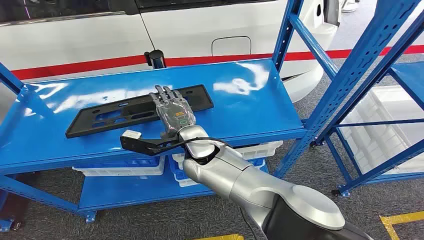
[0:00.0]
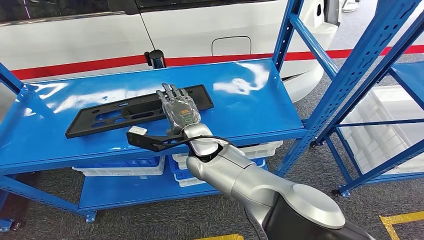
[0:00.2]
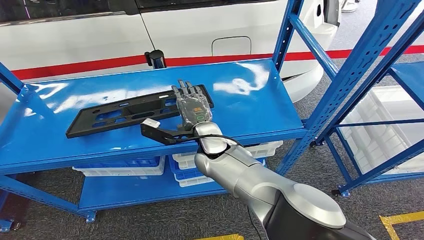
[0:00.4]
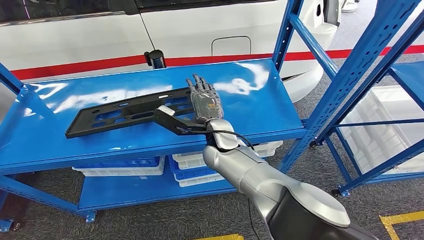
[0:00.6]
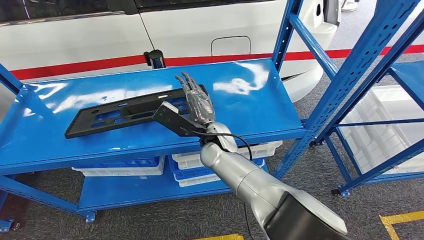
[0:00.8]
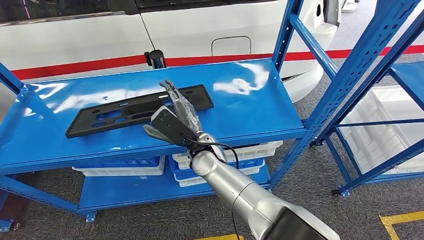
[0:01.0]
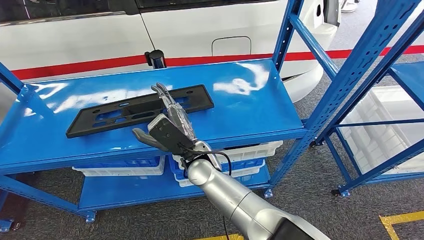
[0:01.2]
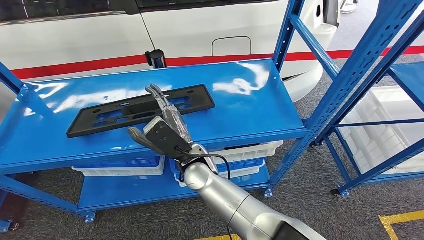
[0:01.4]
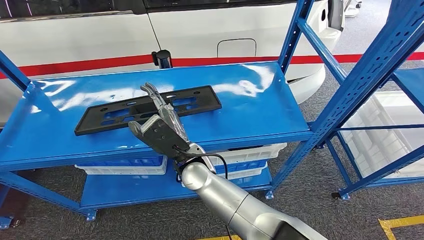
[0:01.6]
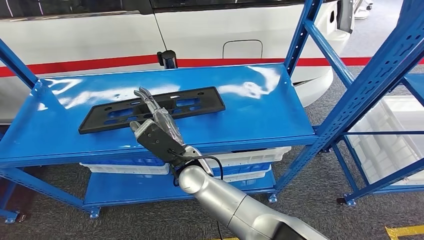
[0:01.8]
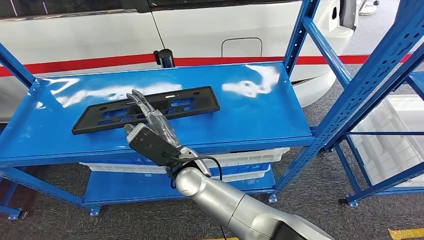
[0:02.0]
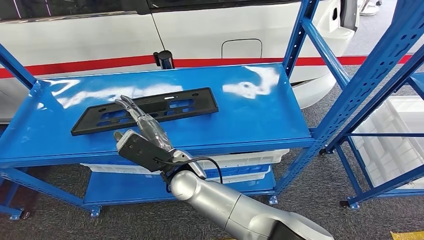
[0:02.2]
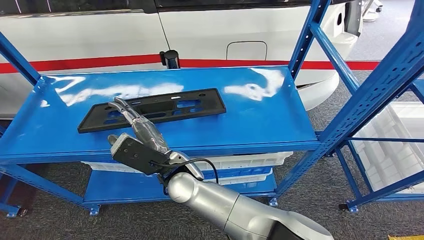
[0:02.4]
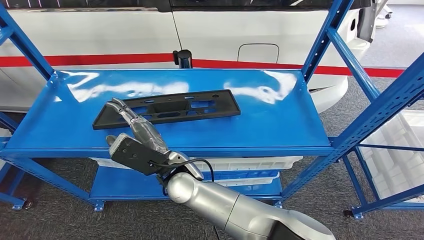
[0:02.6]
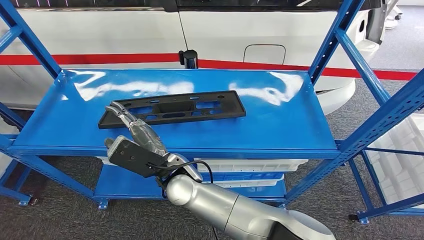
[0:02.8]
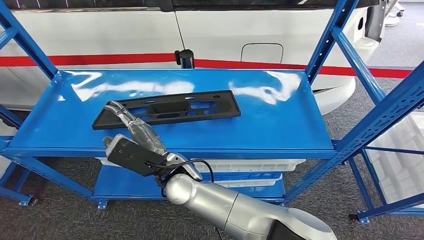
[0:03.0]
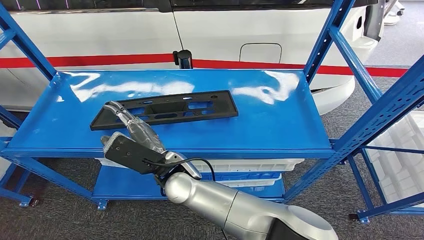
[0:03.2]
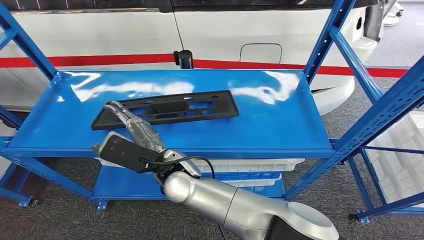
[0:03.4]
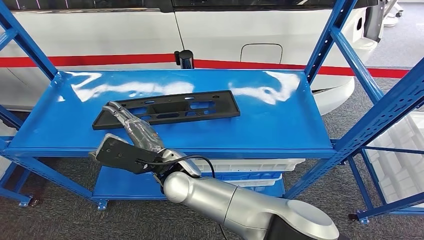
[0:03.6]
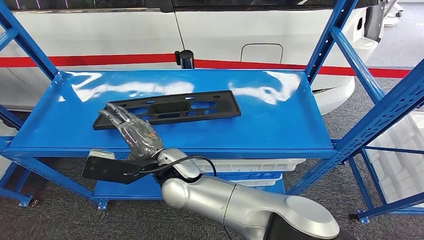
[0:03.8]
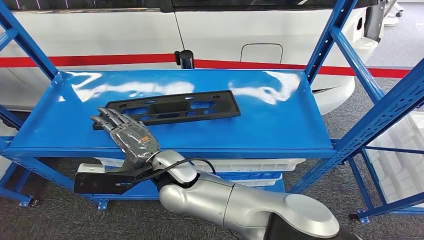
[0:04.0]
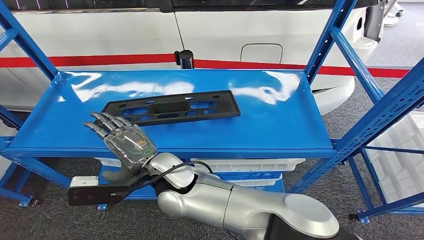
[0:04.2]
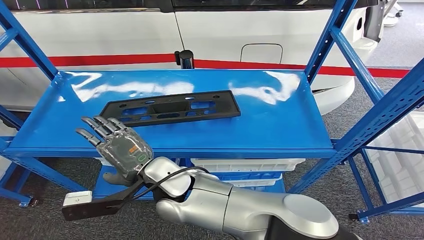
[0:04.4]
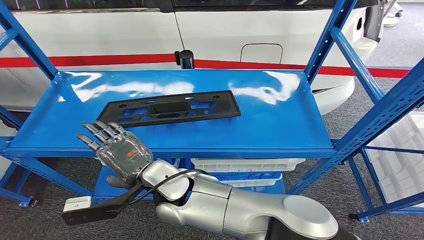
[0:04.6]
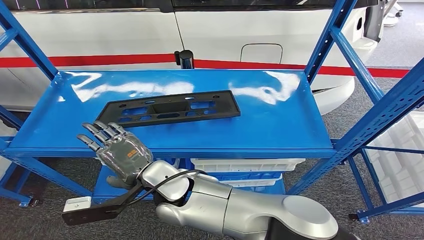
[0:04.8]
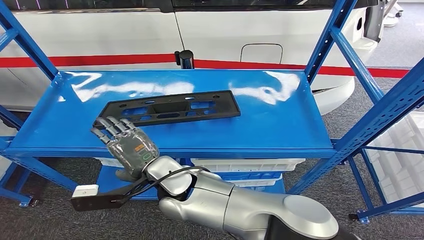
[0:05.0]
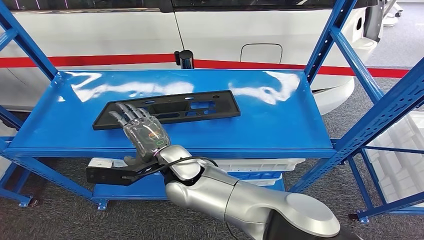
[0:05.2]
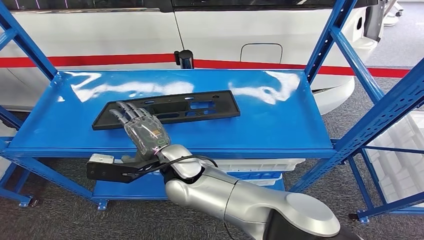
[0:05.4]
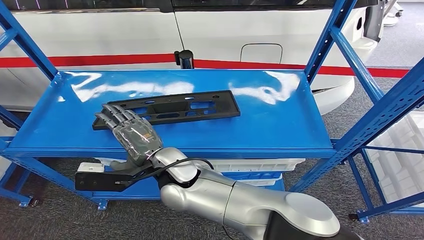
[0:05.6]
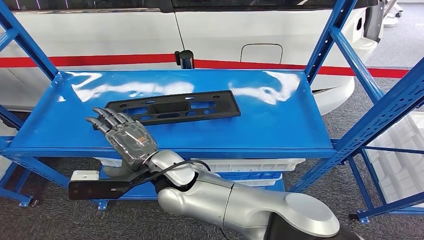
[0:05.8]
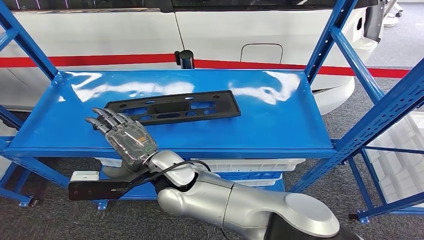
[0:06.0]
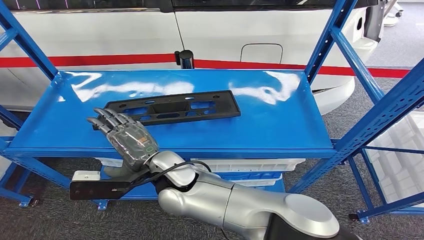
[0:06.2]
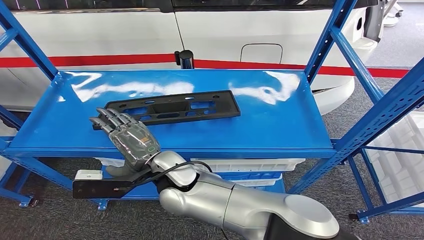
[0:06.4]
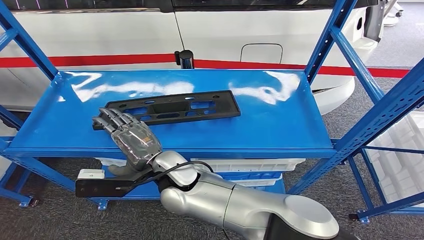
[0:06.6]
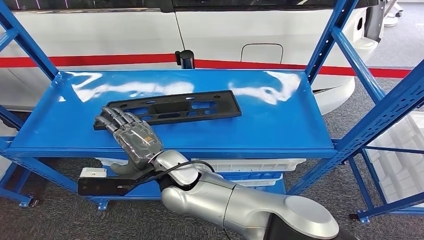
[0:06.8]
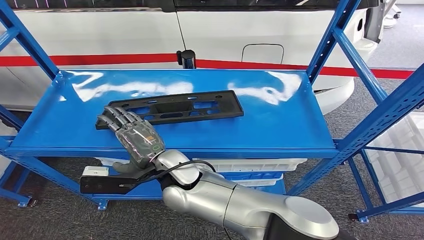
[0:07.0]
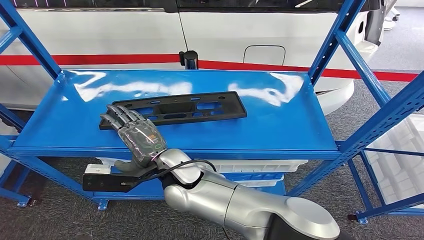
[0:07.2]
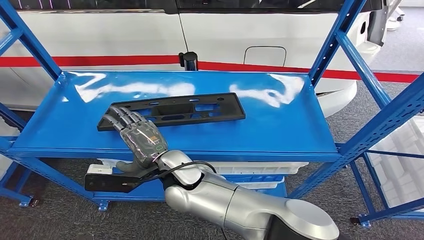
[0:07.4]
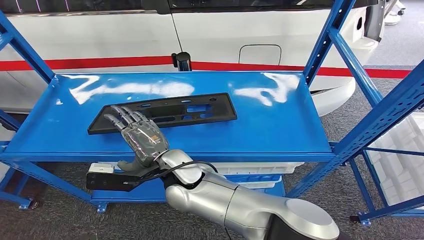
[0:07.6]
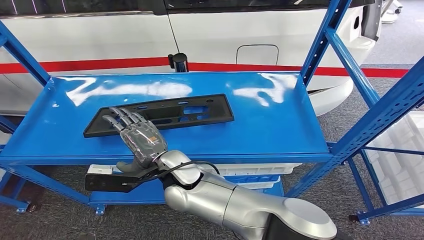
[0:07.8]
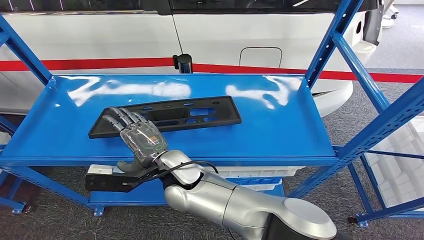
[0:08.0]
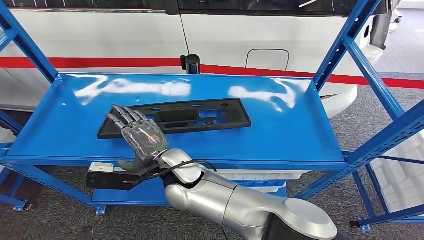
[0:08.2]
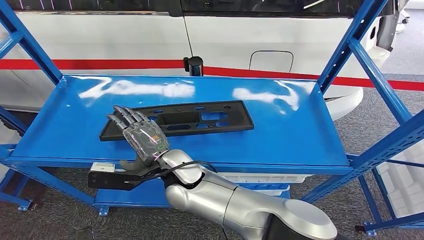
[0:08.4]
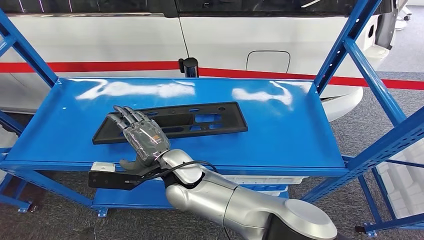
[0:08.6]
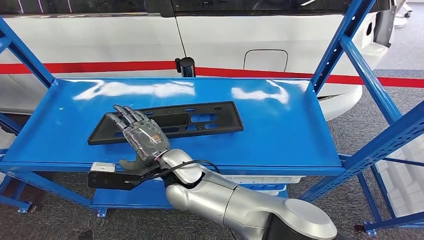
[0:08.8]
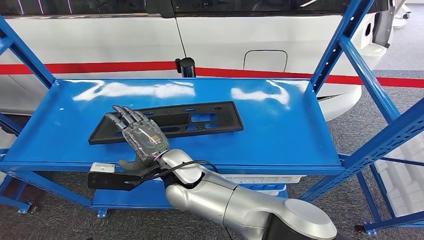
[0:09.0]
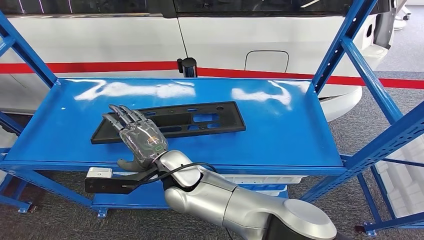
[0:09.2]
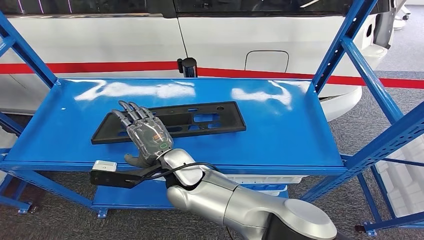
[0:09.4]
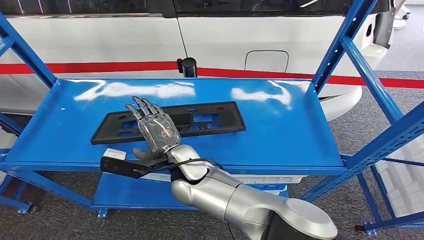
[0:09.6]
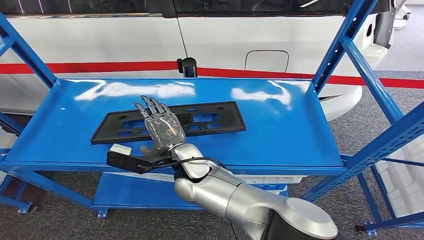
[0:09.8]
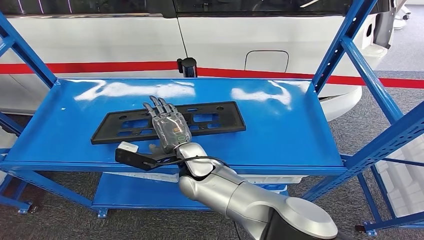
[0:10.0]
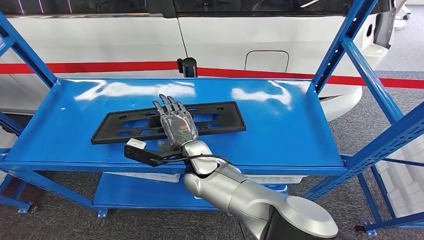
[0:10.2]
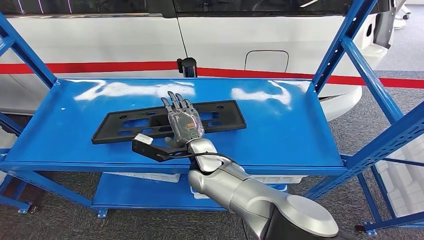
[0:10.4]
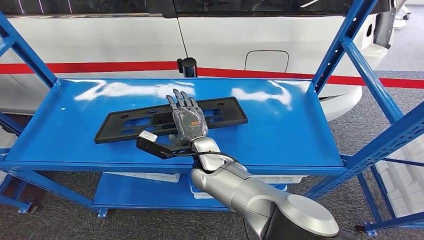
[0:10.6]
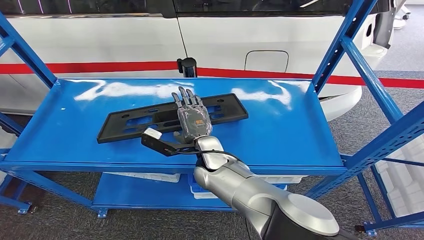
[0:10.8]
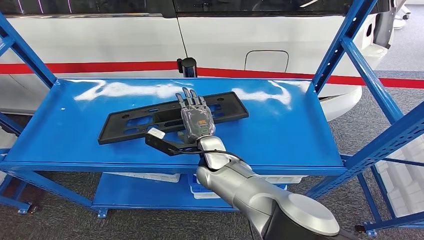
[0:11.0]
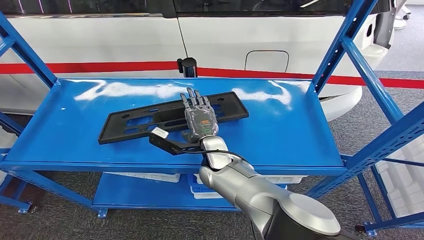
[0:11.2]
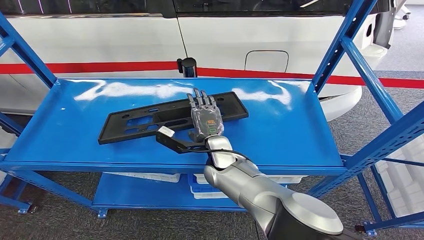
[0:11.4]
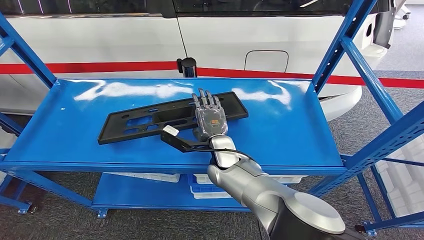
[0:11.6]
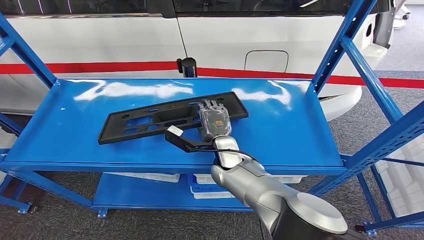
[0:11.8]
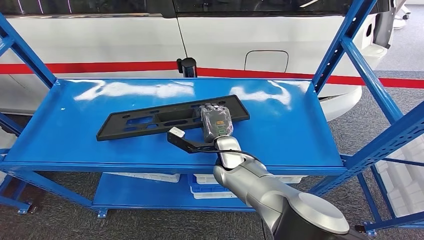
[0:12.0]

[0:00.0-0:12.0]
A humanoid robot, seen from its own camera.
0:04.4 to 0:06.0: The hands move only a little.
0:09.0 to 0:10.4: The right hand heads to the right, covering about 5 cm.
0:10.4 to 0:12.0: The right hand goes about 5 cm to the right.

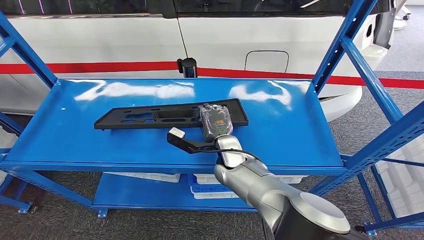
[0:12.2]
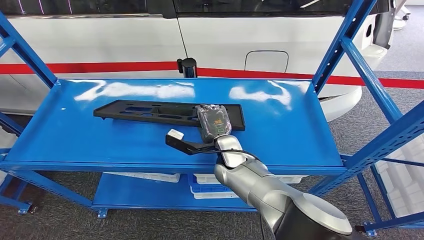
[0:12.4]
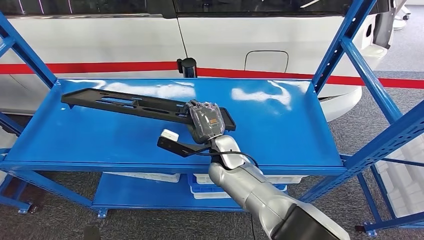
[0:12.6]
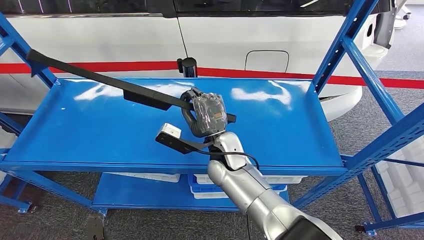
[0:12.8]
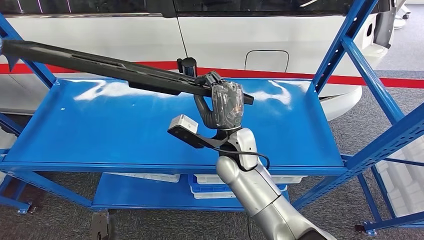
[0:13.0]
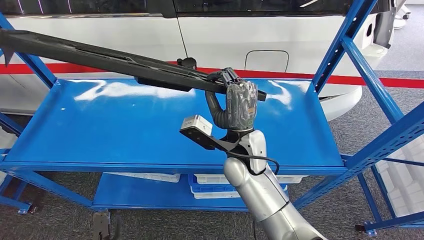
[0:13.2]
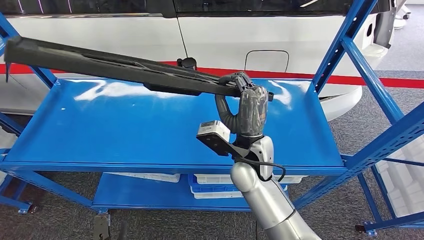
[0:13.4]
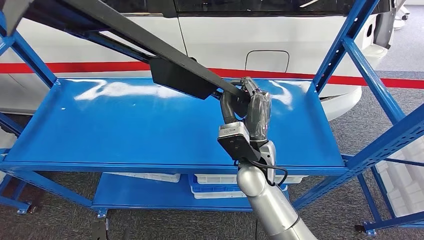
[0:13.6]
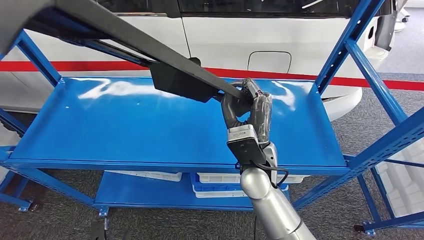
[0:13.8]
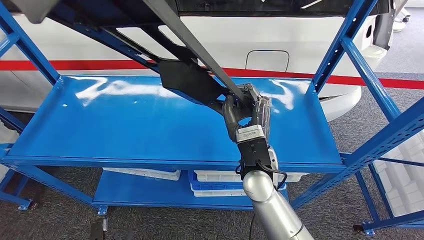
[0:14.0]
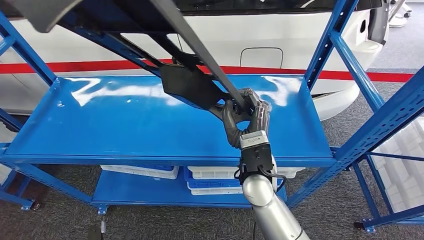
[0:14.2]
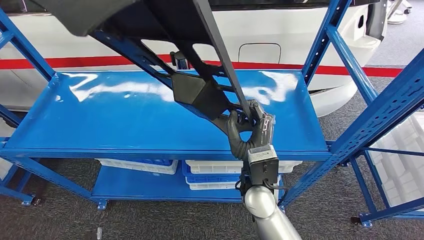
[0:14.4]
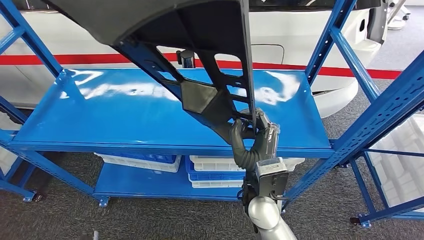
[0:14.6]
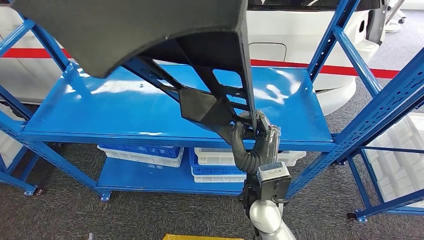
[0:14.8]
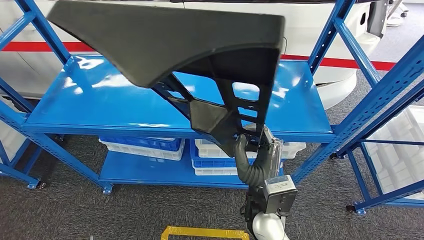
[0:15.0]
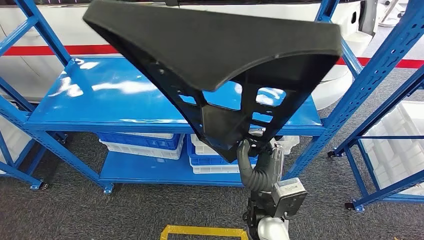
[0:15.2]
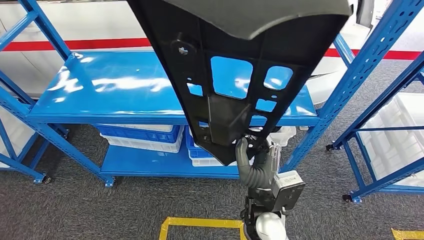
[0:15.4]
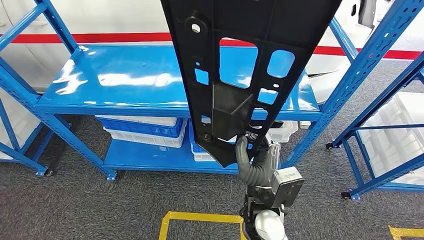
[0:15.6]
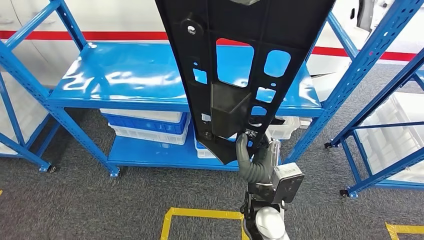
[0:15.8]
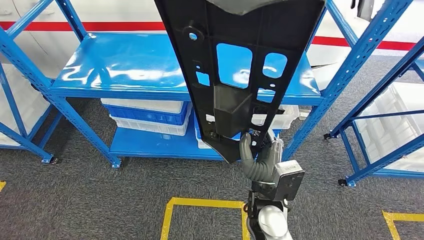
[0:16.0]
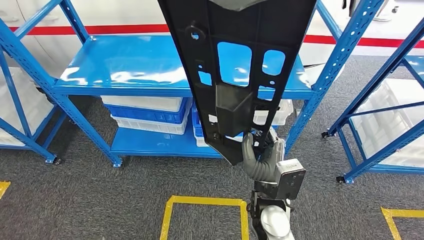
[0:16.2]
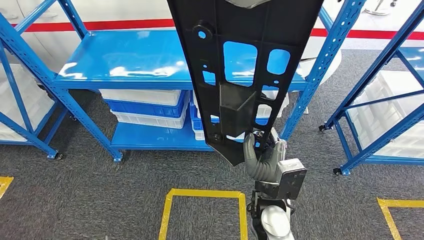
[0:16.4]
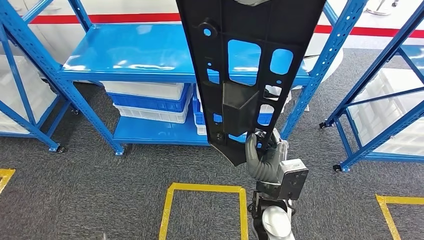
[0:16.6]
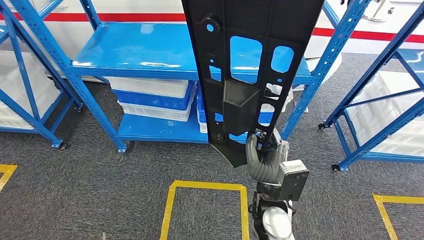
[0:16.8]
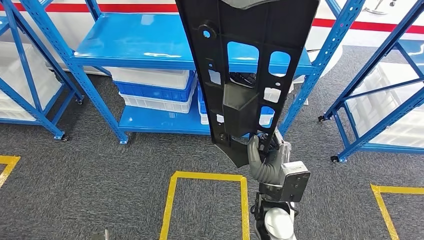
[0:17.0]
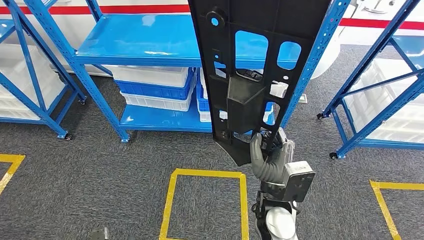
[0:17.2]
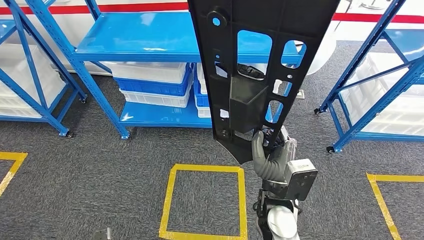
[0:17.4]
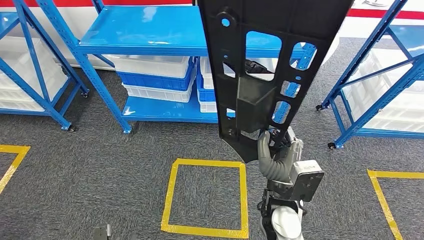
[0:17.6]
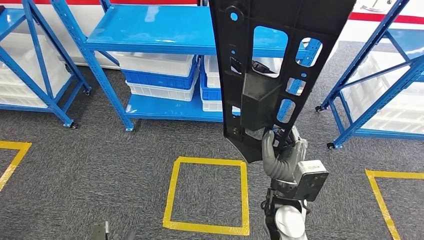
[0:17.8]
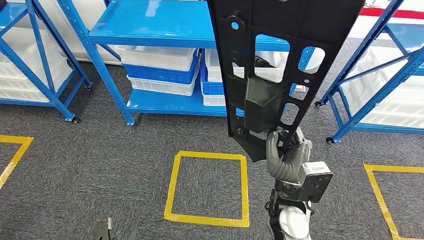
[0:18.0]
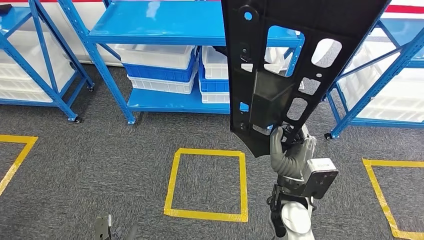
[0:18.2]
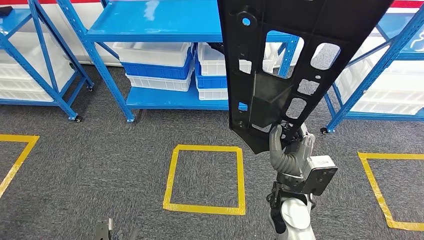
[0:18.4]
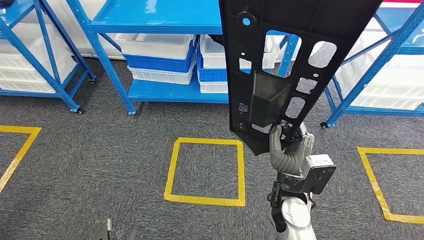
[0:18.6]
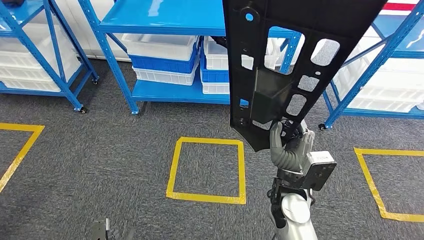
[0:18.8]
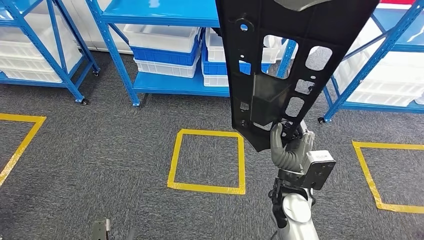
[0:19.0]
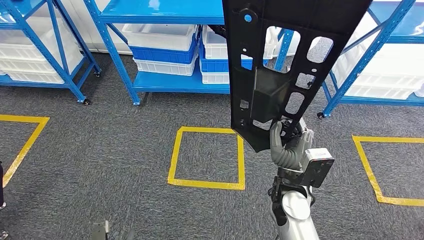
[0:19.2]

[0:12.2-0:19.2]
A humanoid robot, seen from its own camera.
Step, 0:12.2 to 0:16.0: Pick up the large material from the shelf.
